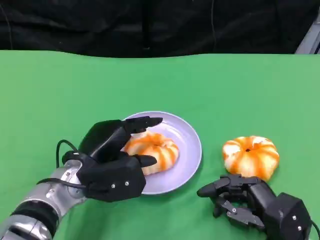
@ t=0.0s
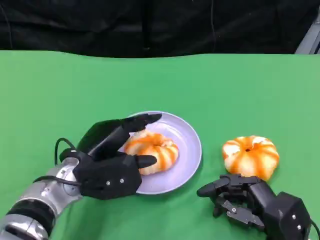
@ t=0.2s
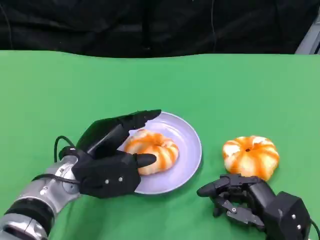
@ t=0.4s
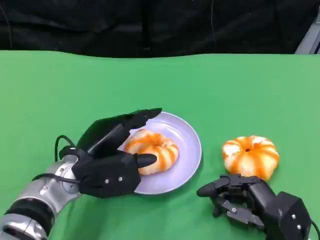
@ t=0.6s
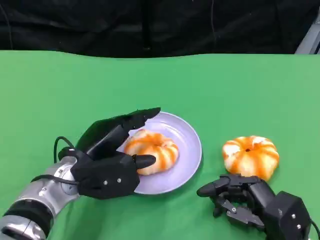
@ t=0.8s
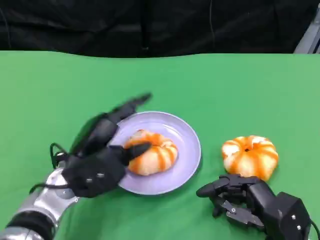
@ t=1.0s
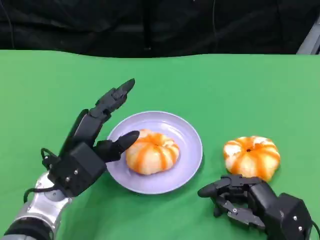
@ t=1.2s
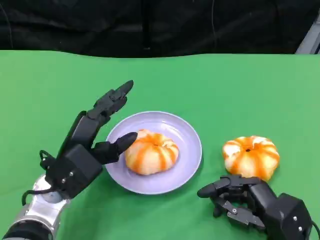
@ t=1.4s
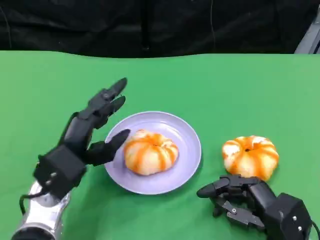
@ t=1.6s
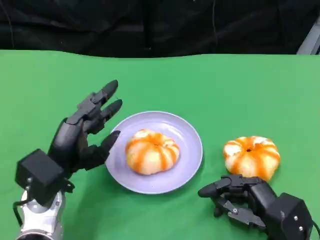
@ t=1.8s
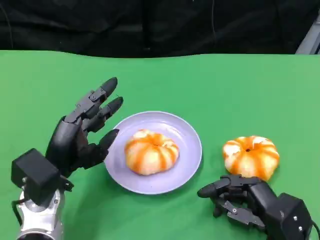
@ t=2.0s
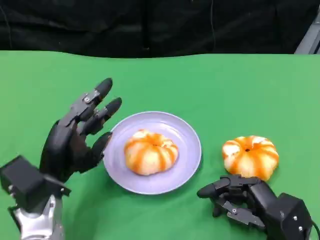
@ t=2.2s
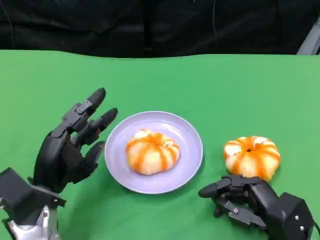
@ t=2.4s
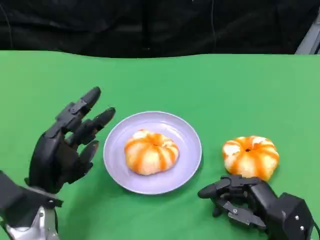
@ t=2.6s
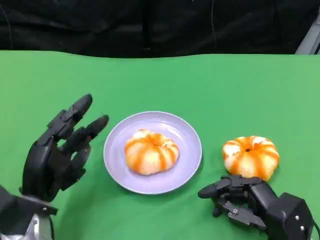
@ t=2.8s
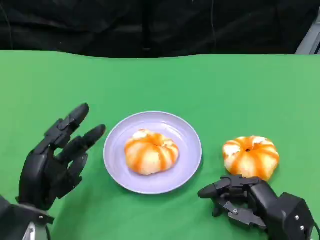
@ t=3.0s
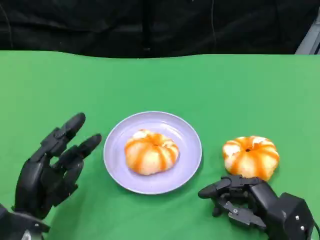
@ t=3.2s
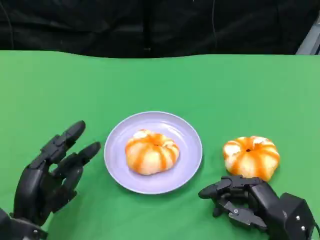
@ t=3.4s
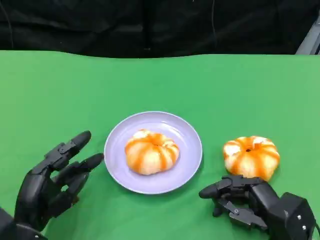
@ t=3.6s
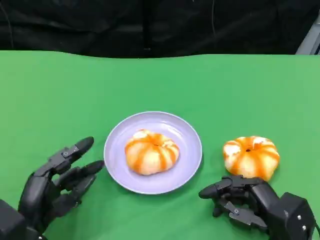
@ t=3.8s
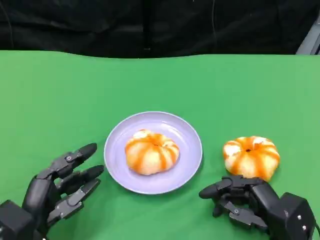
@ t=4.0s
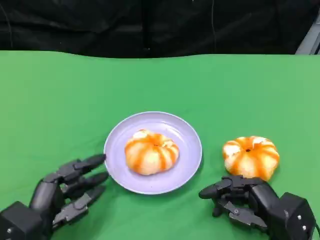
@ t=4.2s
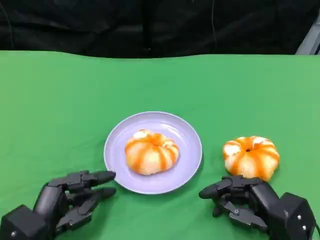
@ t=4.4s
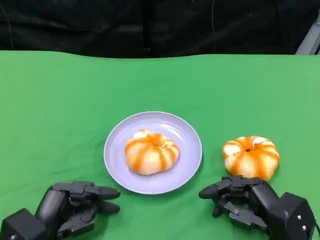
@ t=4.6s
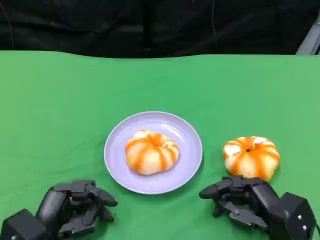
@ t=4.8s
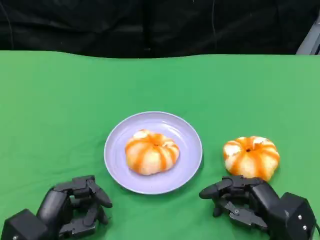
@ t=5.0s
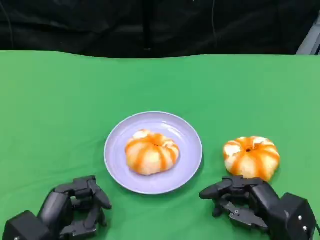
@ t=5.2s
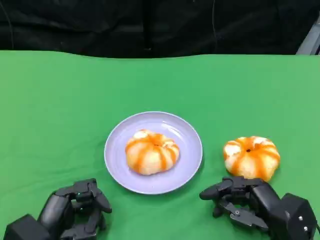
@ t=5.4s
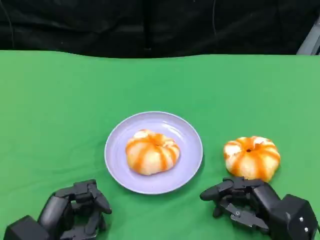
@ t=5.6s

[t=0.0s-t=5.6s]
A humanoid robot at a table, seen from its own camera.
Task of the whole recording: Grasp the bread from the table and place it into the plate.
t=1.4s to t=2.8s: The left hand shifts by roughly 5 cm.
t=2.8s to t=4.2s: The left hand changes place by approximately 5 cm.
t=4.2s to t=5.6s: There are only small adjustments of the hands.

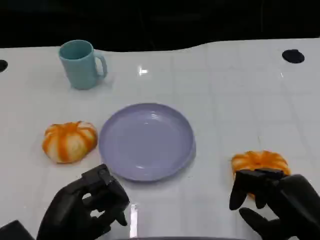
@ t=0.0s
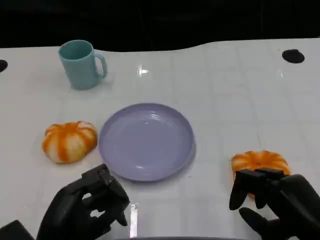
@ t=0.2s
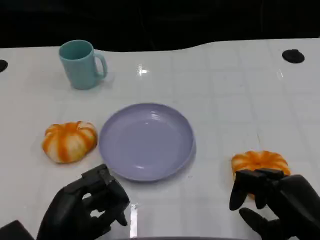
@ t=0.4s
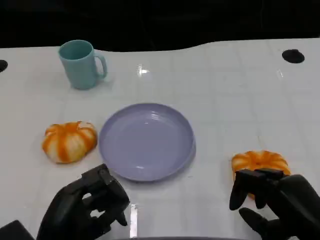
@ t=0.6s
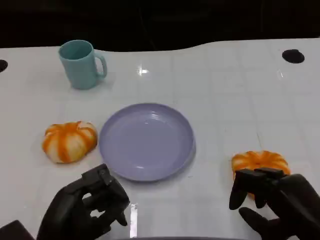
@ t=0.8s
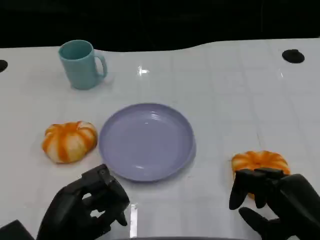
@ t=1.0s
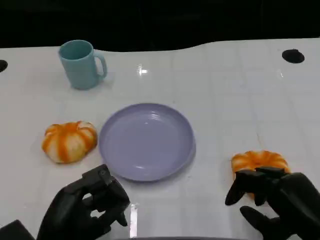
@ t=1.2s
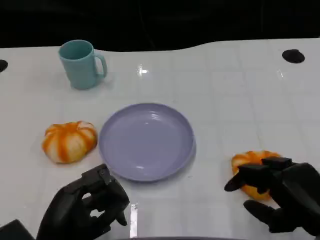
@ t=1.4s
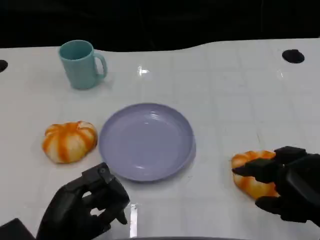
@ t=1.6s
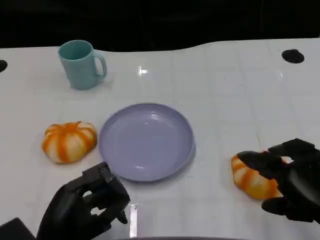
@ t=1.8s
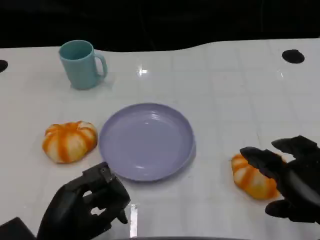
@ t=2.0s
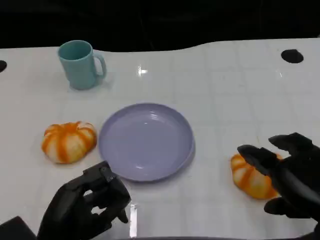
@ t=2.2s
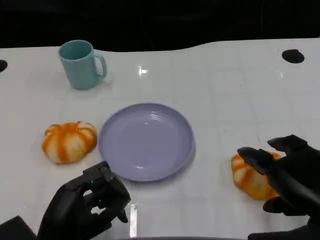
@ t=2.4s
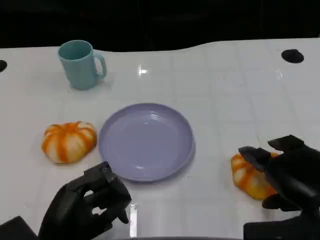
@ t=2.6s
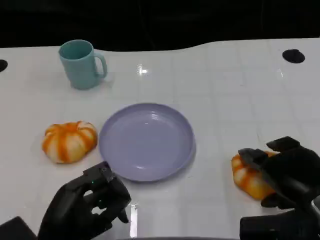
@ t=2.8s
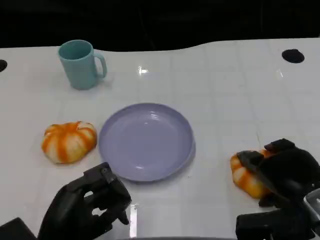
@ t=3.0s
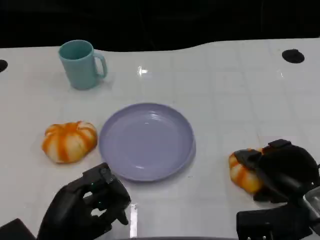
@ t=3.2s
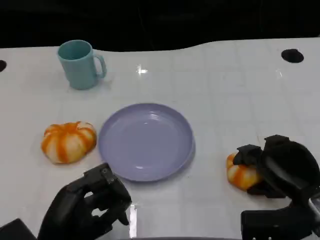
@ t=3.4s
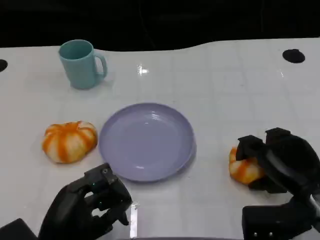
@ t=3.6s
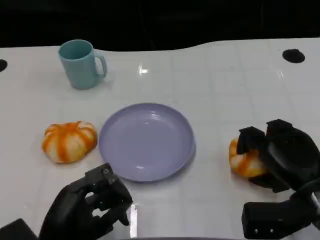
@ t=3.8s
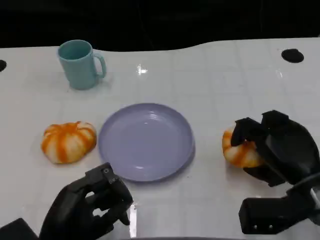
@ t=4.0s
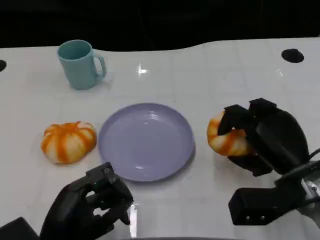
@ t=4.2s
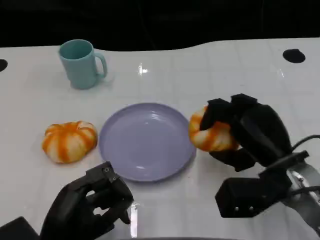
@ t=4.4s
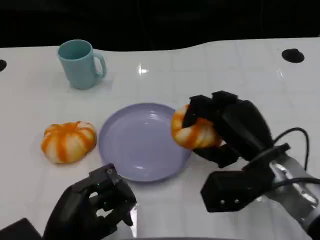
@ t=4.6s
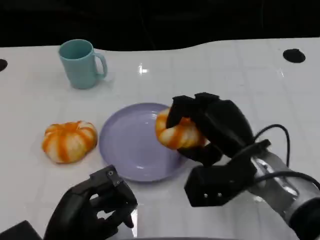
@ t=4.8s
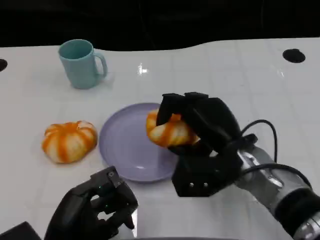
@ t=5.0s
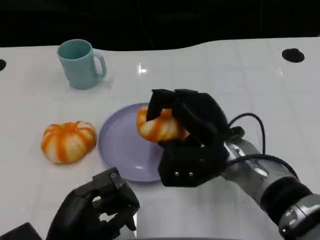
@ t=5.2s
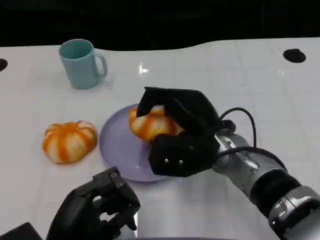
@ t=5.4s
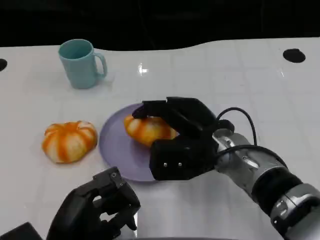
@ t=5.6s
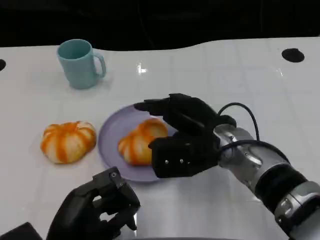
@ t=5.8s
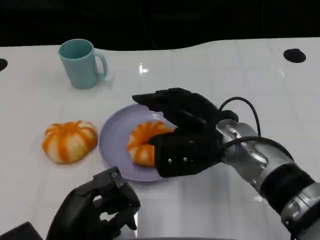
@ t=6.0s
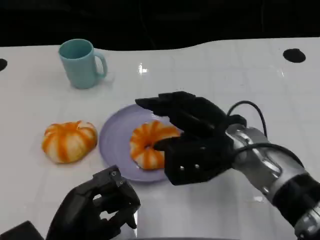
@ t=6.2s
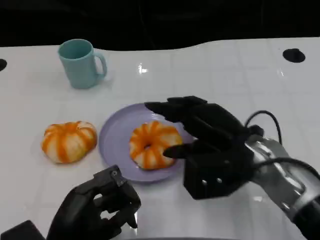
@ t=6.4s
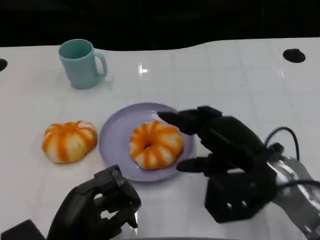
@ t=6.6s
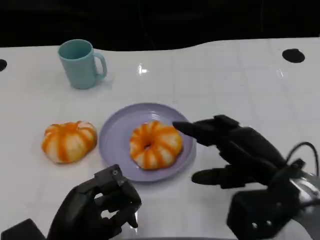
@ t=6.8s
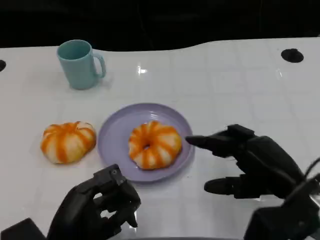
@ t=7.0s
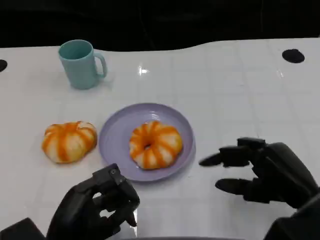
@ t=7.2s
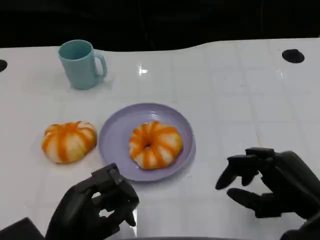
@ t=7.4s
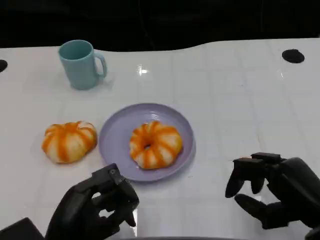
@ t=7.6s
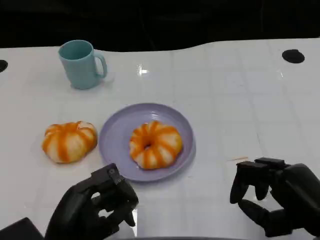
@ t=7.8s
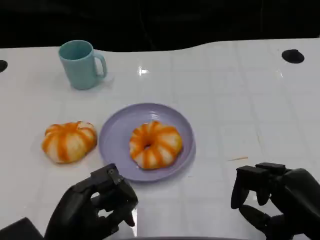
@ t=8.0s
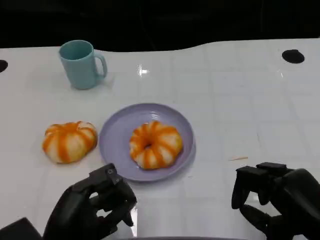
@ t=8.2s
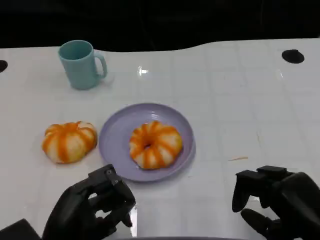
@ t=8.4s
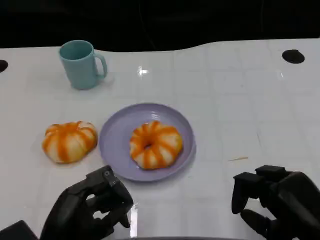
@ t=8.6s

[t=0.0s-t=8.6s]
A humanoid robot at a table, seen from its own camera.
Task of the whole recording: Grasp the bread from the table and place it into the plate.
t=0.0s to t=1.4s: The hands stay close to where they were, moving slightly.
t=2.8s to t=4.4s: The right hand heads forward, covering approximately 5 cm.
t=4.4s to t=5.8s: The right hand is displaced to the left by some 10 cm.
t=5.8s to t=7.2s: The right hand heads to the right and backward, covering approximately 15 cm.
t=7.2s to t=8.6s: The hands make only small movements.
